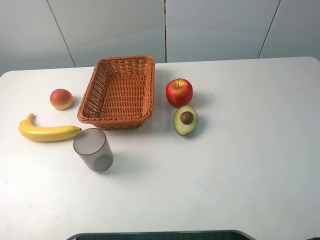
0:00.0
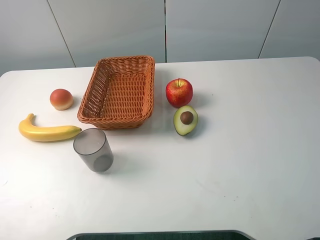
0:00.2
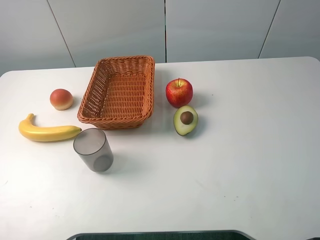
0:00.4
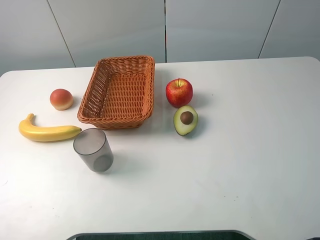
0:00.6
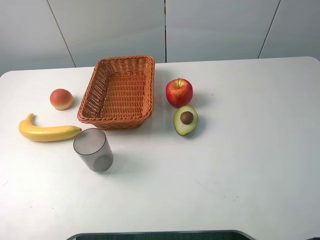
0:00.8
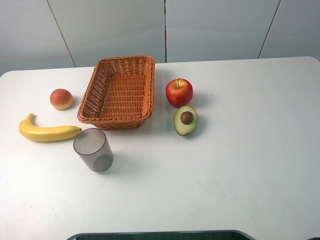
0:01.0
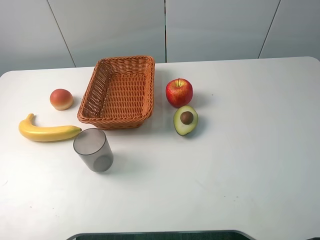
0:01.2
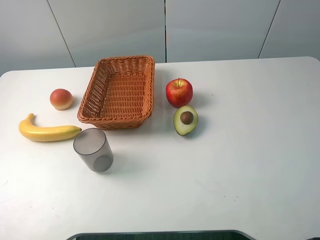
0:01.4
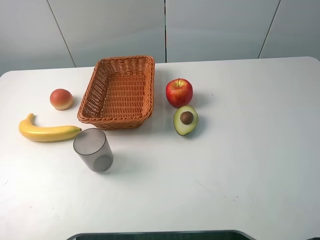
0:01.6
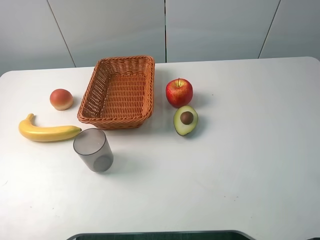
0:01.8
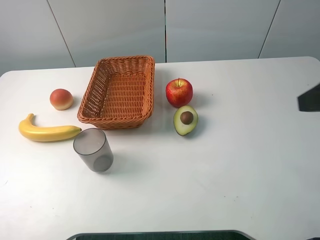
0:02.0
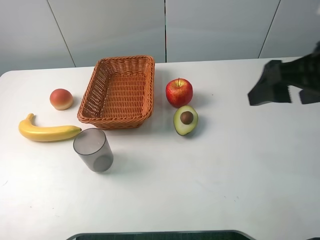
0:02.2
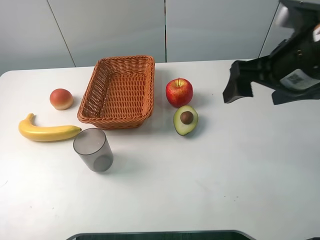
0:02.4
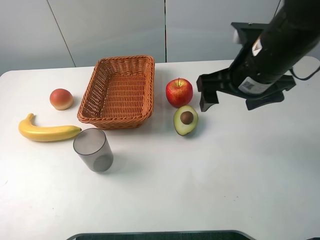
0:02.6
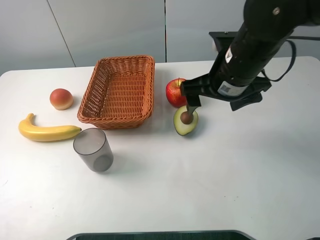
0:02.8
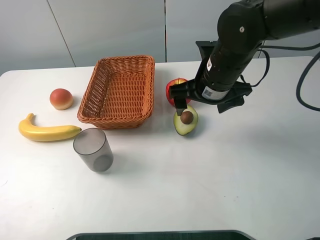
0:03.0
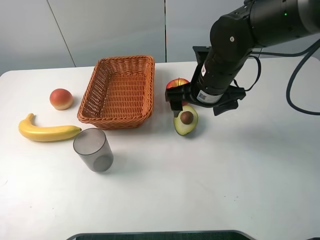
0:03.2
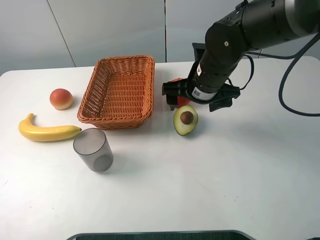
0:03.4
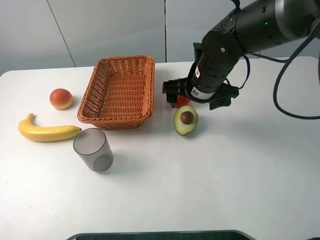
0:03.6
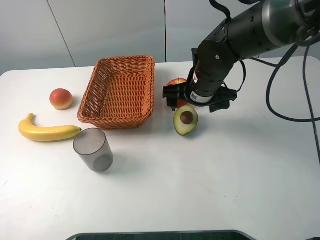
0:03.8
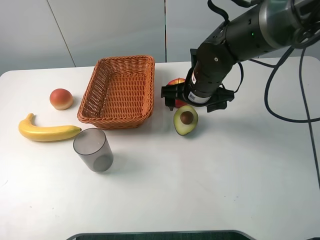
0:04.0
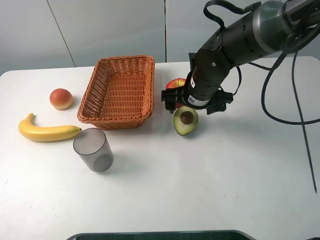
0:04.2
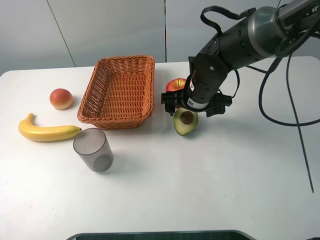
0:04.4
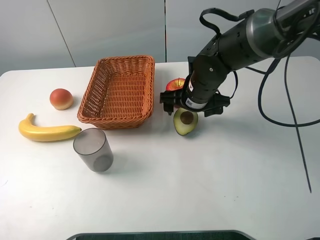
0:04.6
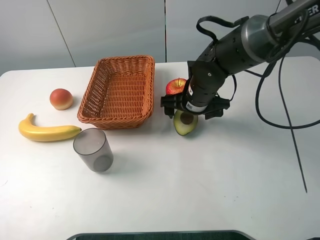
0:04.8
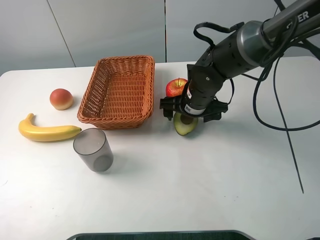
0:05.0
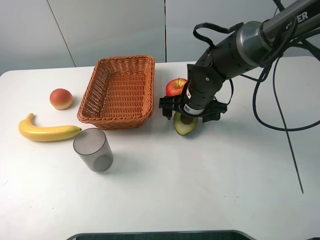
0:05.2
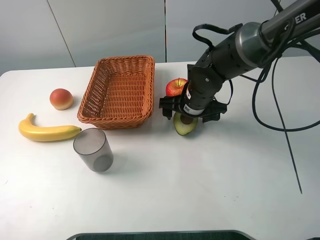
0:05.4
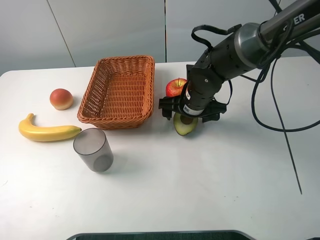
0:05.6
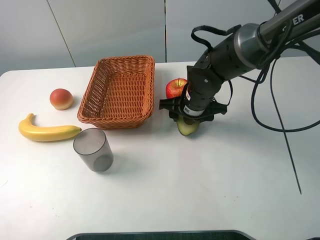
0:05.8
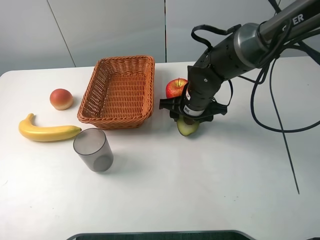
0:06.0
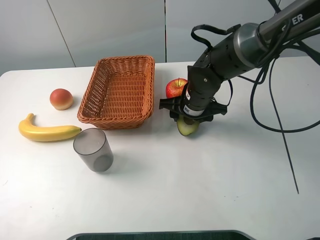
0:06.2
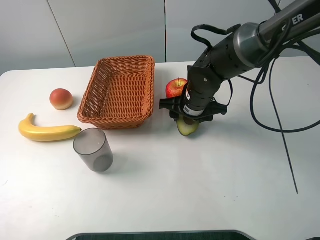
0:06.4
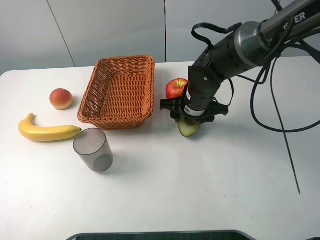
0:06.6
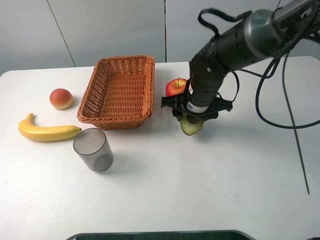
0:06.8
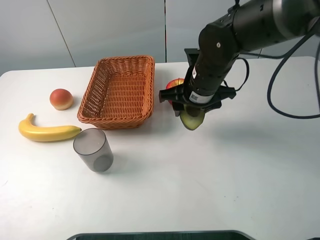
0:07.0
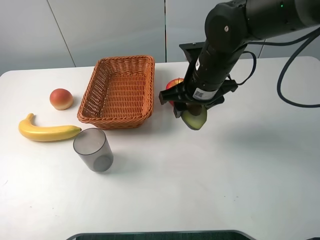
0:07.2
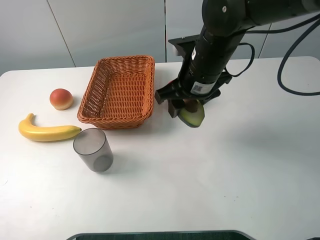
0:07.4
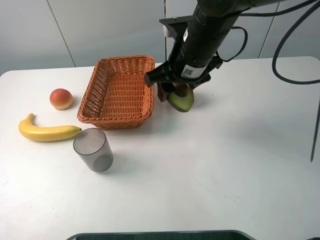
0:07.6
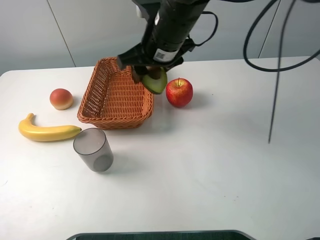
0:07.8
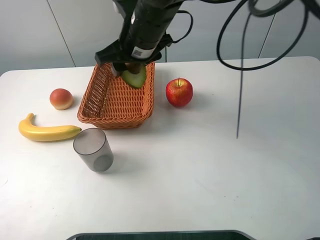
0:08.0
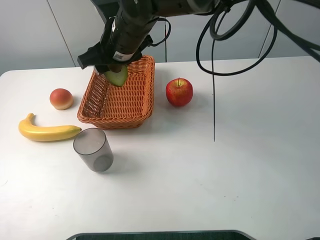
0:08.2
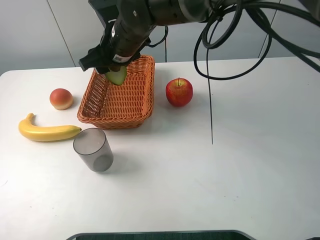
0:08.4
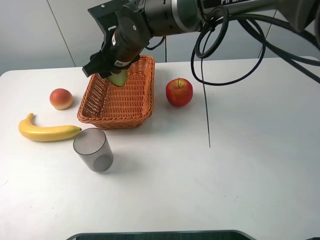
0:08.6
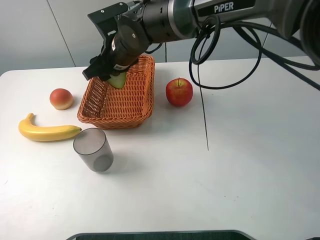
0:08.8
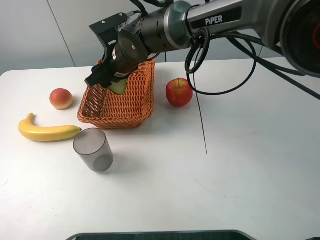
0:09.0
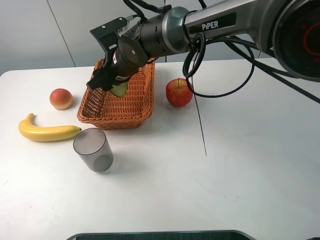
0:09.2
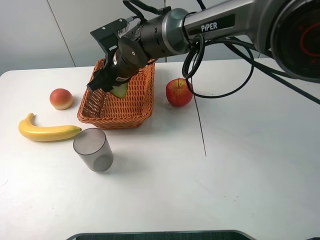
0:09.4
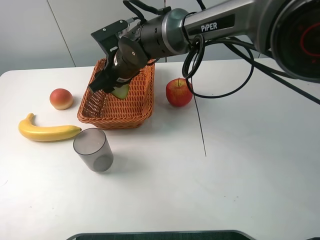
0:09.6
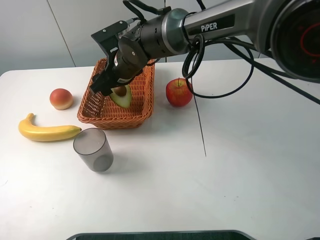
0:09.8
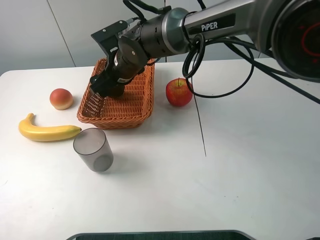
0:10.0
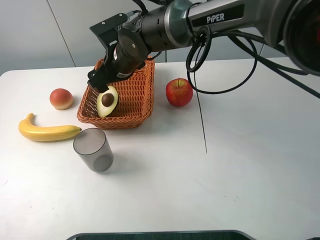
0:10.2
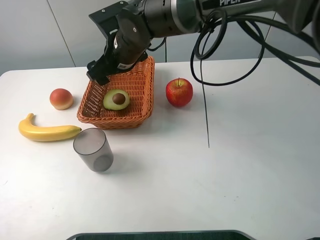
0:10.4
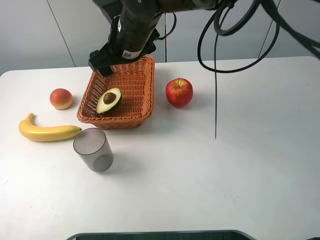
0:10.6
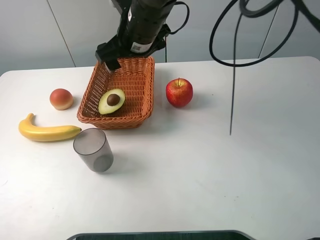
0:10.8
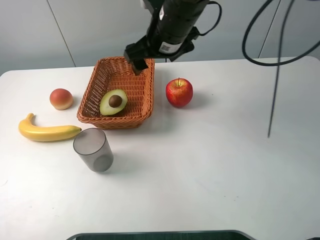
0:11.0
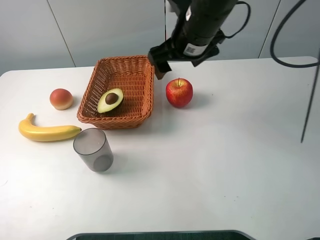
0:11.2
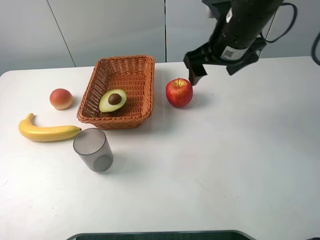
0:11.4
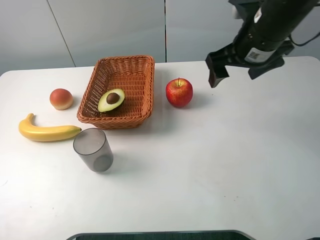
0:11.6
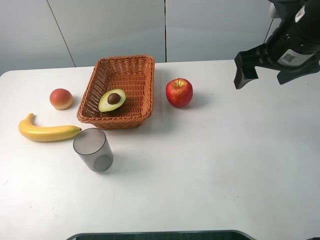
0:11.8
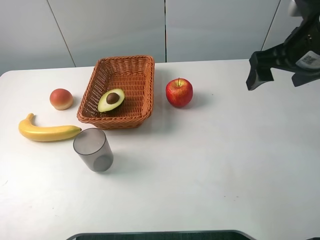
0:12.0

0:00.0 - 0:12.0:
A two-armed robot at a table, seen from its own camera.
0:01.6 - 0:03.0: The right gripper shifts about 35 cm forward, to the left and downward.
0:03.0 - 0:04.4: The right gripper shifts approximately 5 cm downward.
0:04.4 - 0:06.0: The right gripper closes up.
0:06.0 - 0:07.6: The right gripper heads upward, covering about 15 cm.
0:07.6 - 0:09.0: The right gripper goes some 15 cm to the left, downward and forward.
0:09.0 - 0:10.4: The right gripper opens up.
0:10.4 - 0:12.0: The right gripper goes about 30 cm to the right.

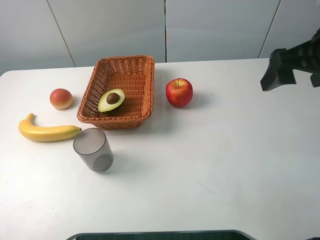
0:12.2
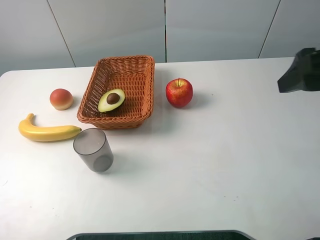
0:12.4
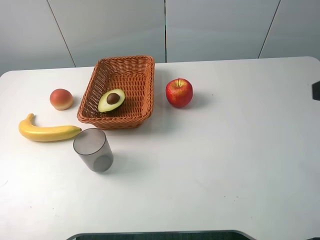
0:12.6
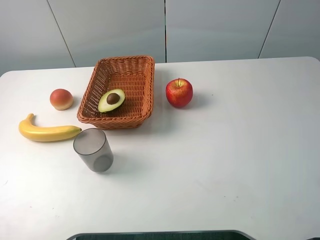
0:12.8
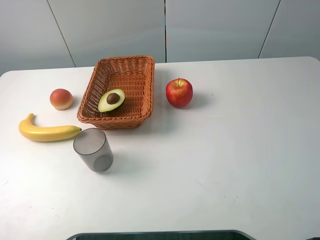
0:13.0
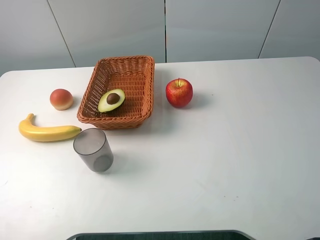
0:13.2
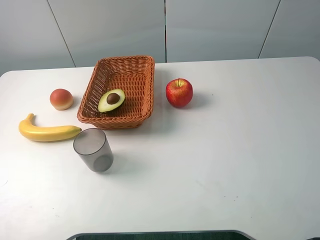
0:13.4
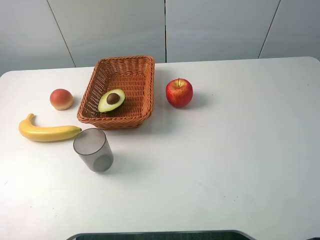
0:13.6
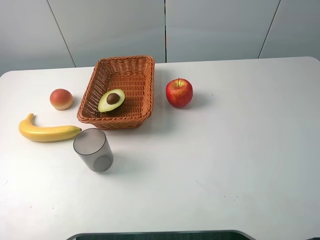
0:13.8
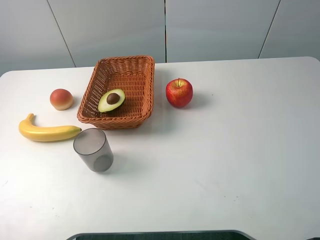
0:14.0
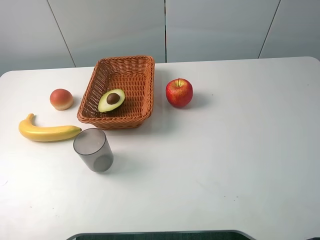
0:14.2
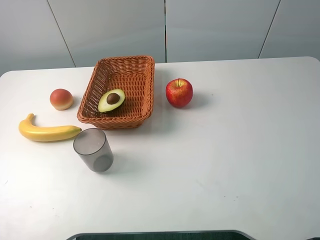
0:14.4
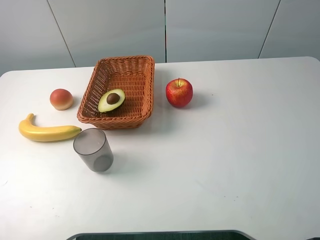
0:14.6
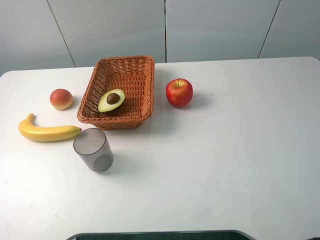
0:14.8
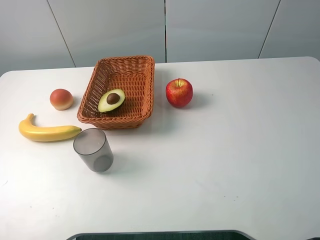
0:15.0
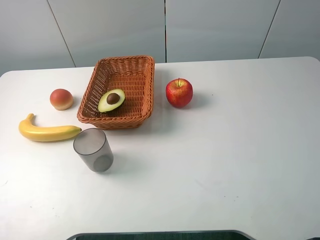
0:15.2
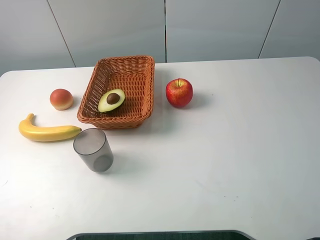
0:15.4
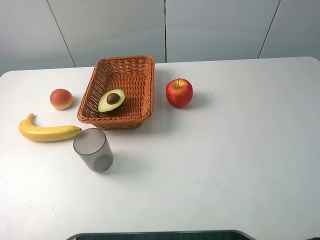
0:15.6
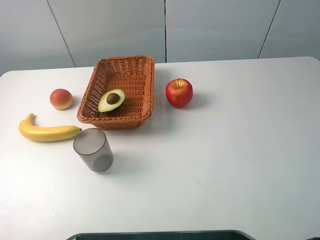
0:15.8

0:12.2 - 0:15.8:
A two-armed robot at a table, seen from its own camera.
0:12.2 - 0:14.0: The right gripper heads backward, covering some 20 cm.
